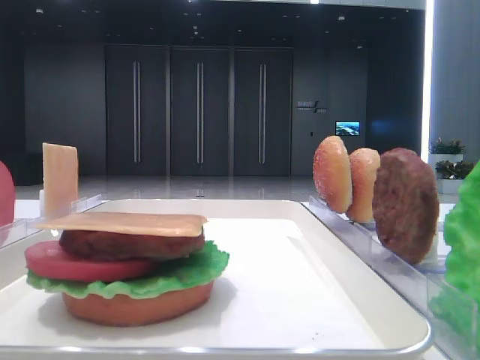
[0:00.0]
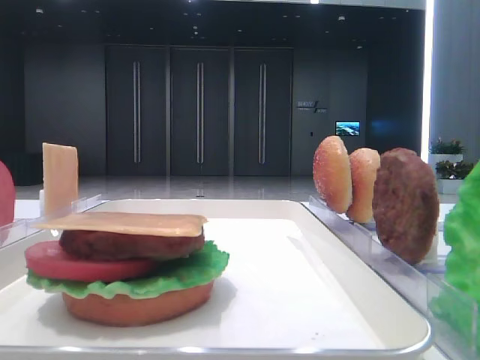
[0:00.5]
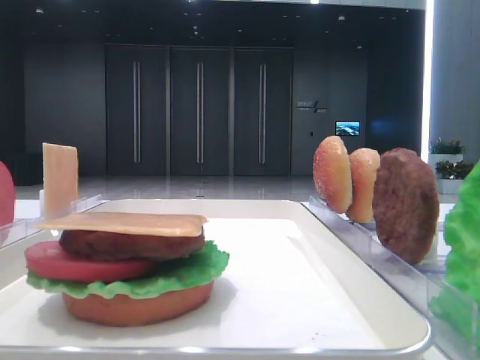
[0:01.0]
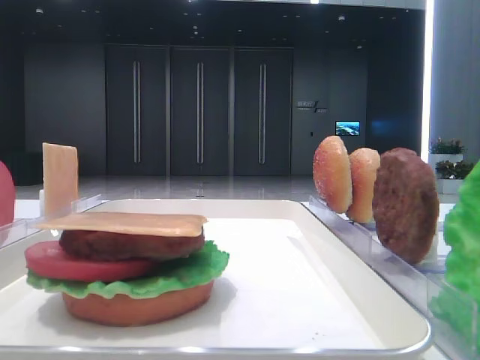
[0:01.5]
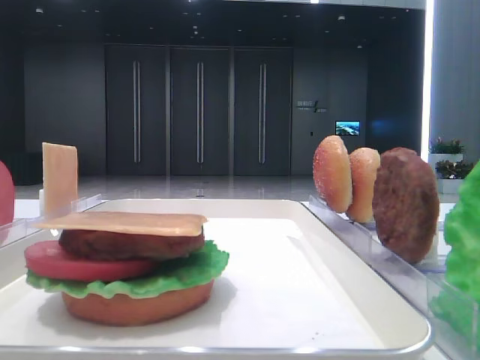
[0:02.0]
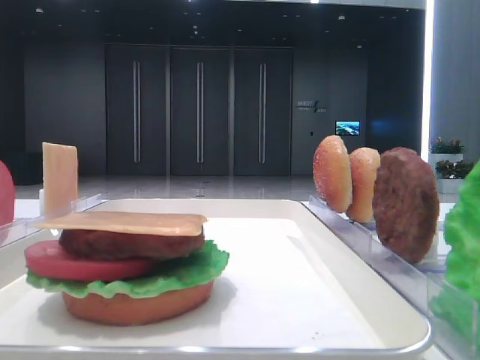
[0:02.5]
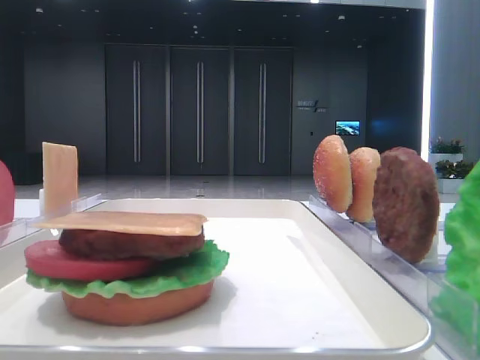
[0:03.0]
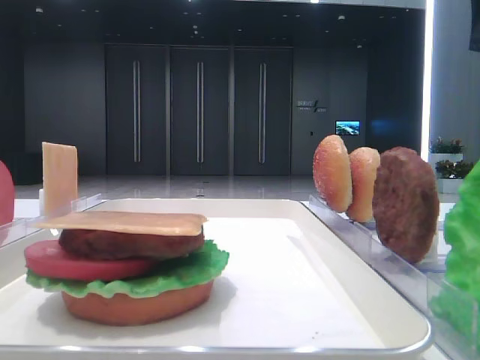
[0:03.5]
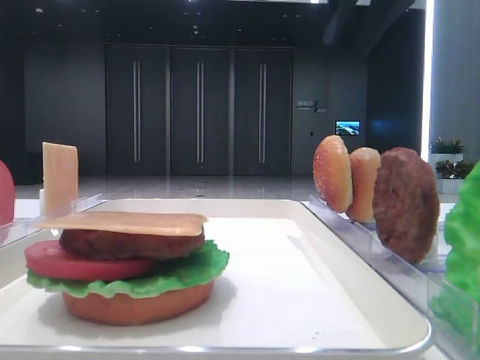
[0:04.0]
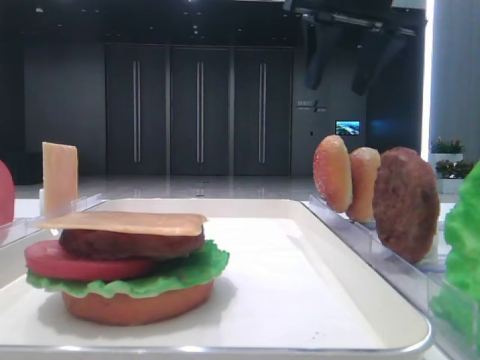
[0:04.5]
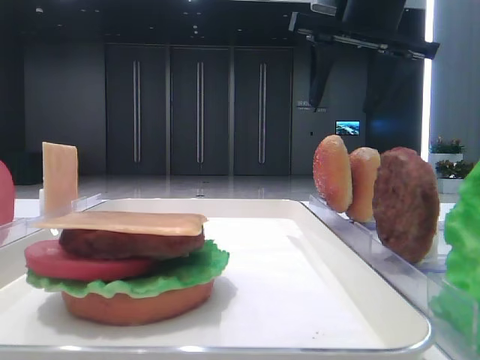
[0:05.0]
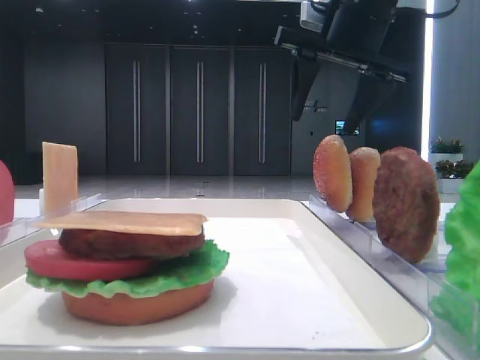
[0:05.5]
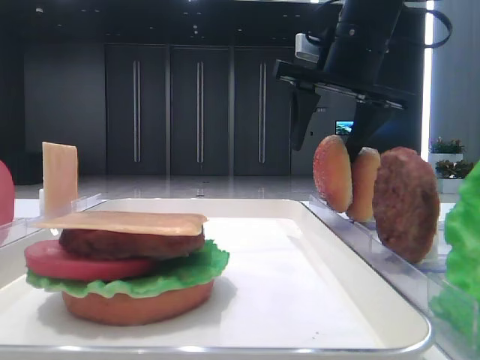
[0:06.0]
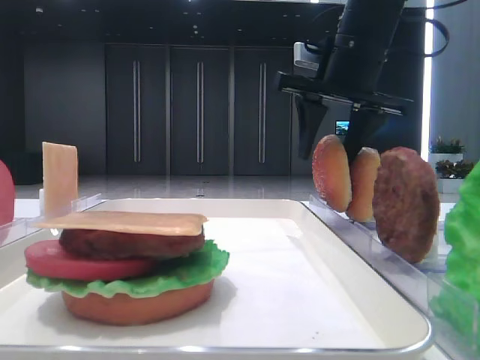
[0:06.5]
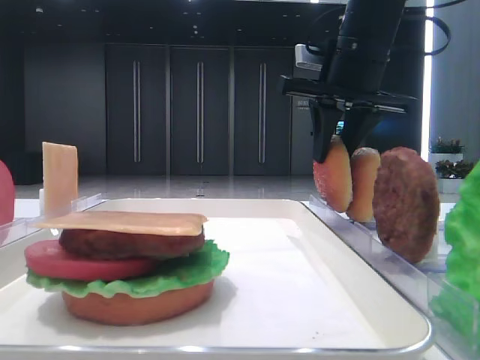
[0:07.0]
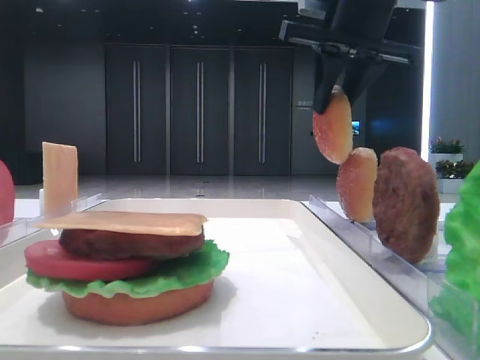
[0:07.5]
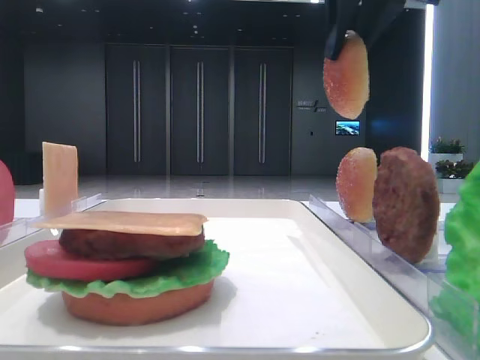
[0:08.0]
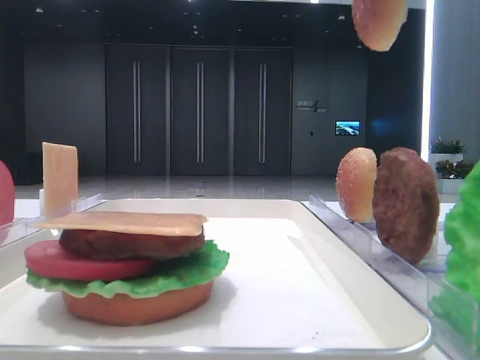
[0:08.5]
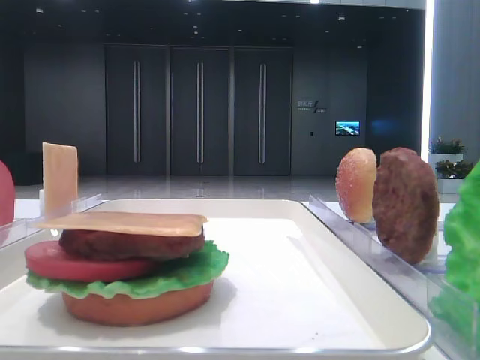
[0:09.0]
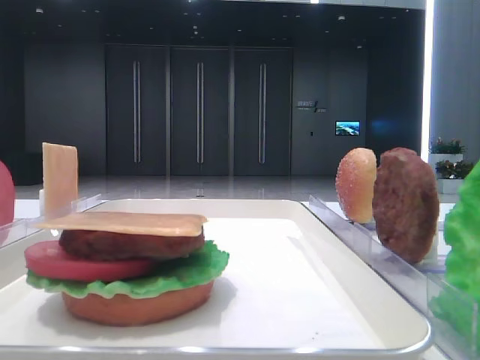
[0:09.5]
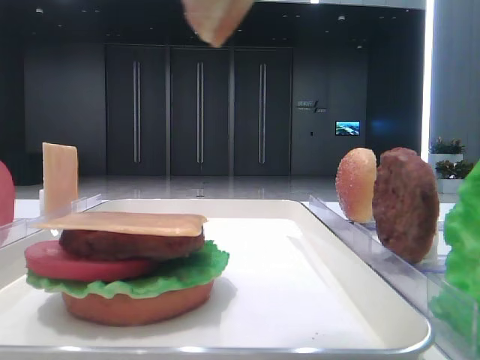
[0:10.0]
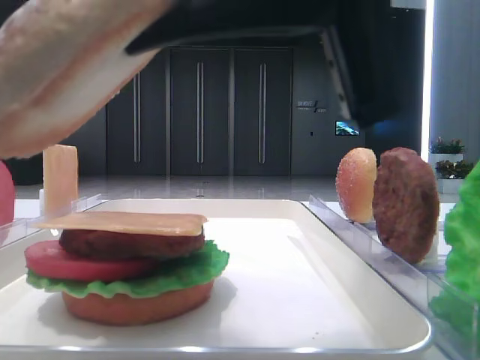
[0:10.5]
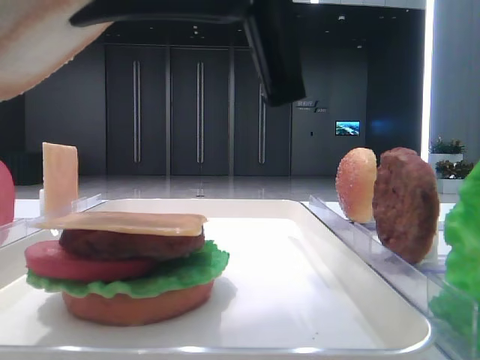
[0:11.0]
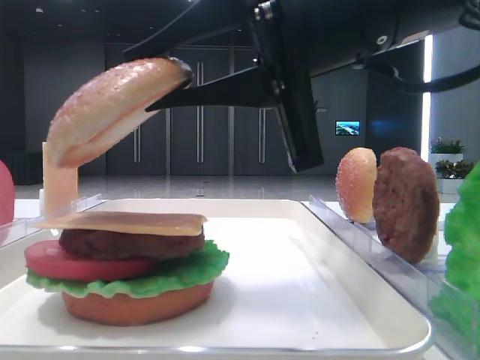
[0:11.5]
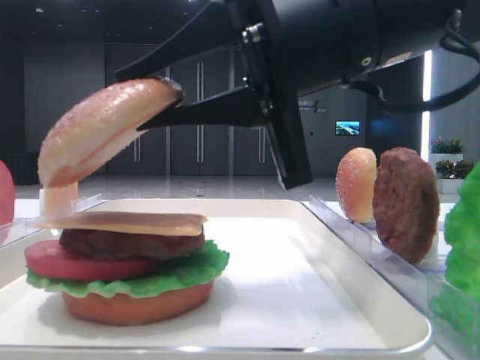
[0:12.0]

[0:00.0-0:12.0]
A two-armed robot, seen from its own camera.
Step, 0:00.0 to 0:07.0: Pick up the top bread slice with the right hand.
0:02.0 to 0:04.0: The right gripper is displaced forward and to the left by roughly 25 cm.
0:04.0 to 0:06.0: The right gripper travels downward by roughly 10 cm, and opens.
0:06.0 to 0:08.0: The right gripper is displaced upward by some 10 cm, and closes.
0:08.0 to 0:10.0: The right gripper moves backward, about 25 cm.
0:10.0 to 0:12.0: The right gripper shifts approximately 20 cm forward, downward and to the left.

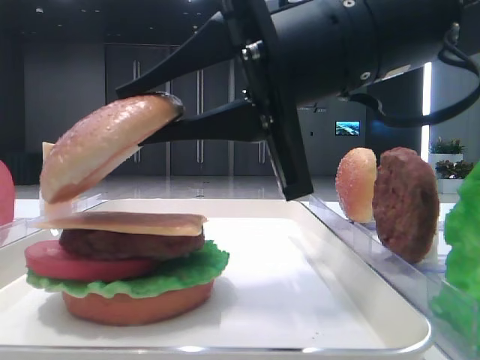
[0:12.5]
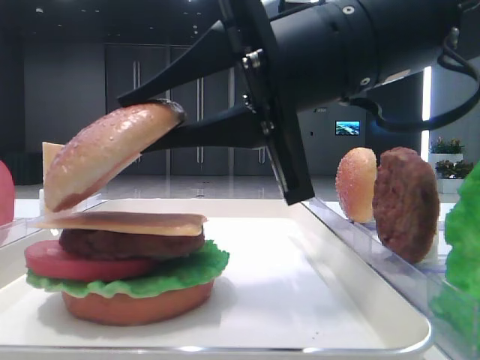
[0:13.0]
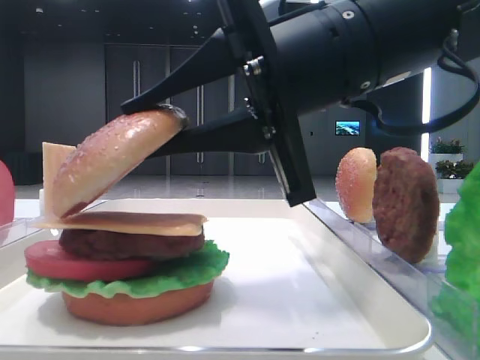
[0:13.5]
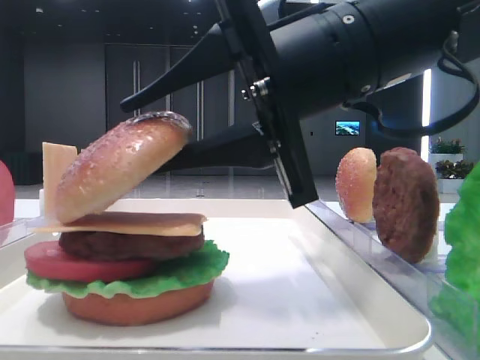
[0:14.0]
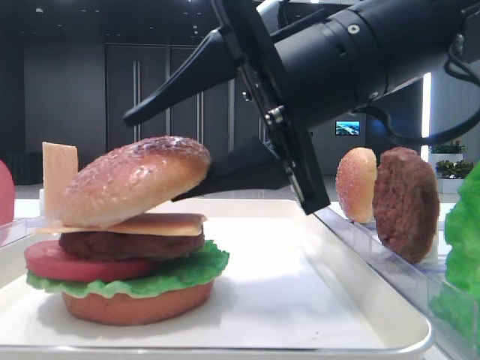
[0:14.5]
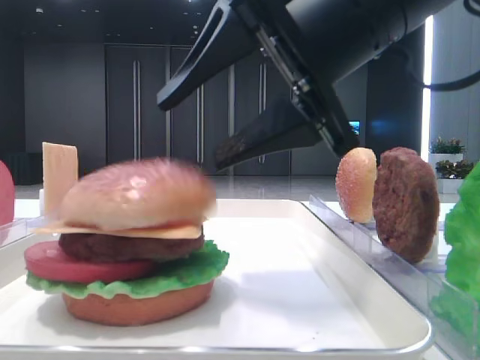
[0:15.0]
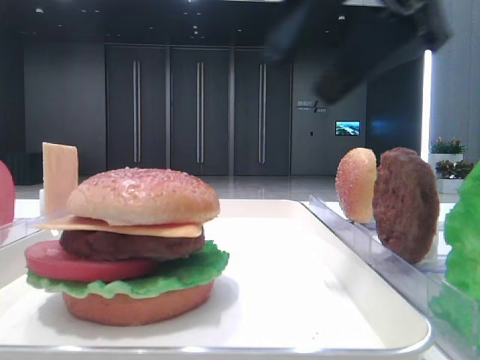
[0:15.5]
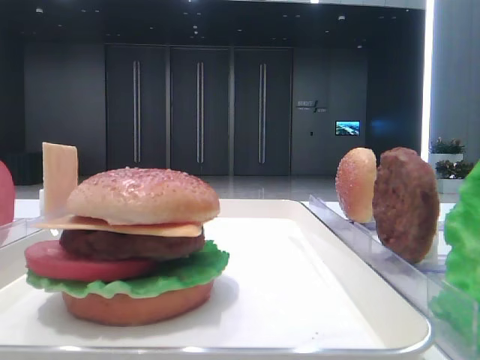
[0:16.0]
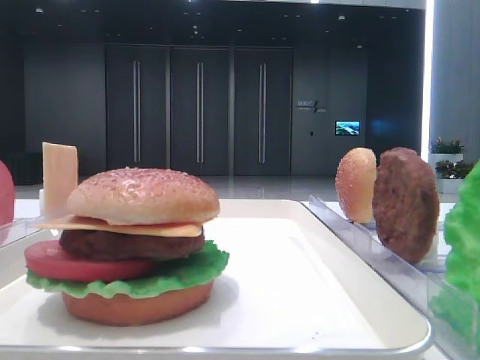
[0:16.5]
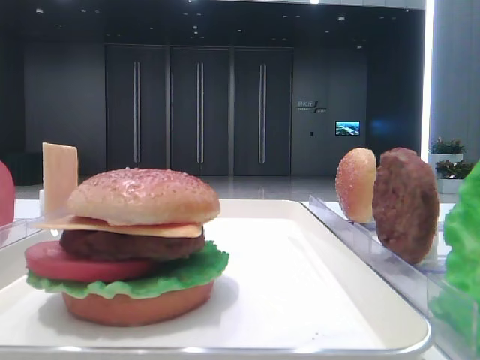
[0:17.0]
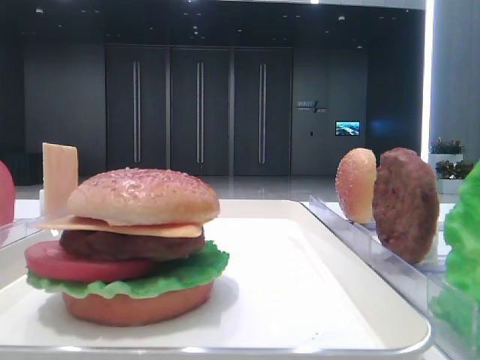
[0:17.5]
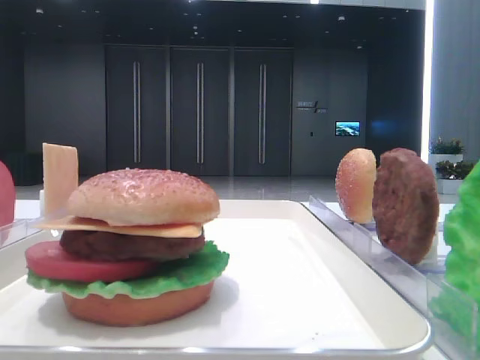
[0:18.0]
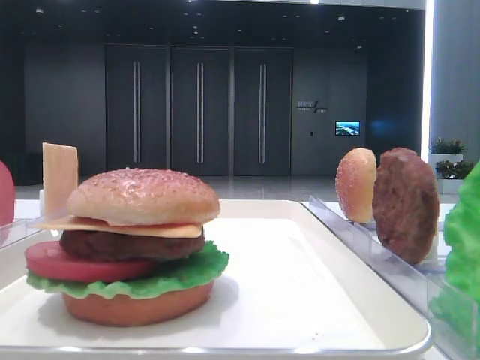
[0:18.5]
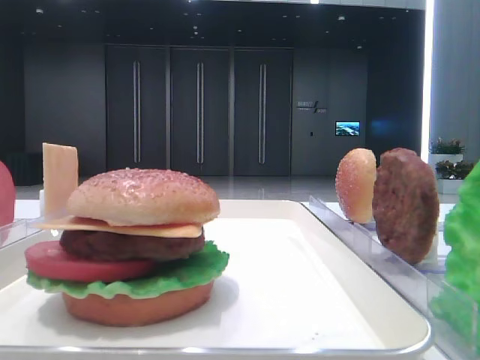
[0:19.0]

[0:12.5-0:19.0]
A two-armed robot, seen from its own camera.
Step, 0:12.5 to 0:15.0: Place the top bread slice on the cheese with the right hand.
0:12.5 to 0:14.5: The right gripper opens its fingers.
0:14.5 to 0:17.0: The right gripper heads upward, to the right and backward, covering approximately 35 cm.

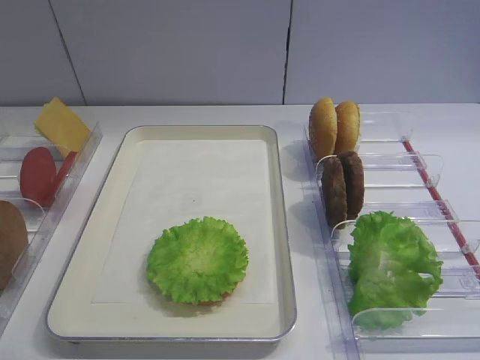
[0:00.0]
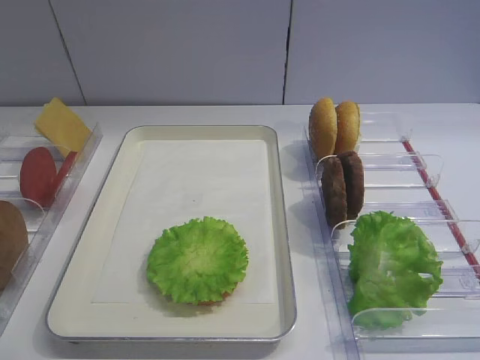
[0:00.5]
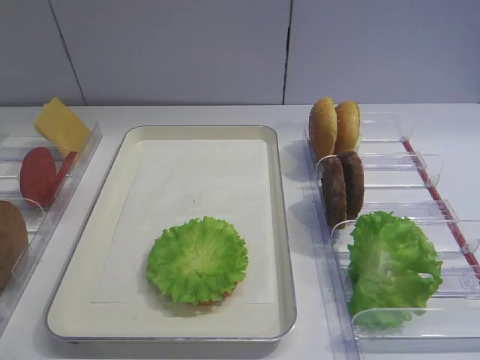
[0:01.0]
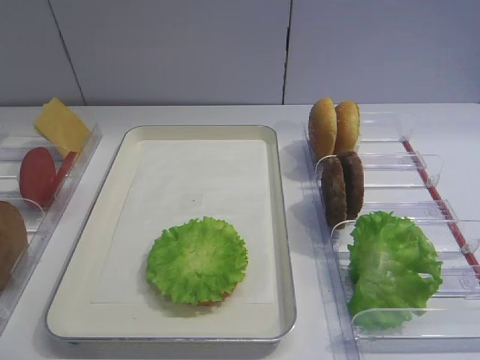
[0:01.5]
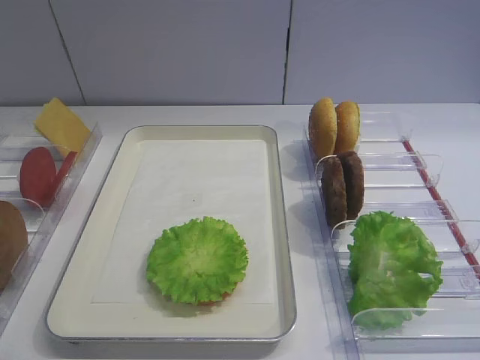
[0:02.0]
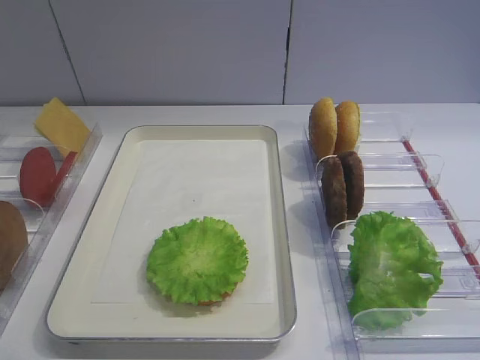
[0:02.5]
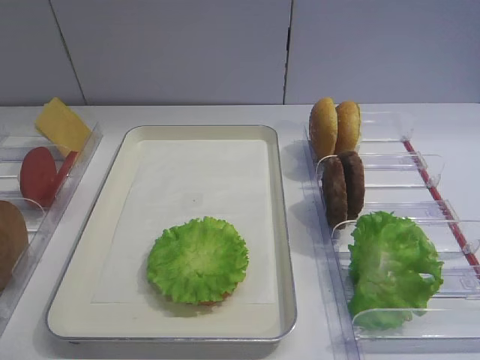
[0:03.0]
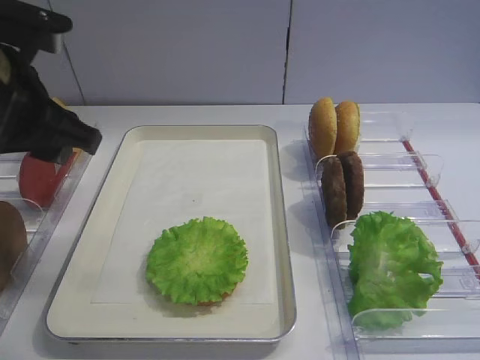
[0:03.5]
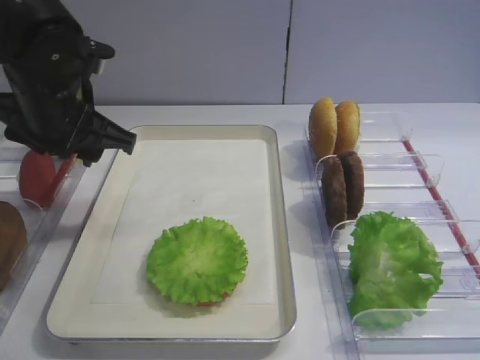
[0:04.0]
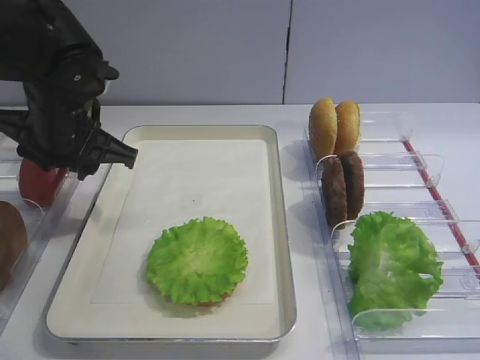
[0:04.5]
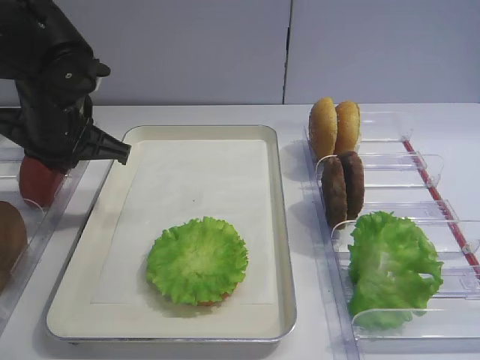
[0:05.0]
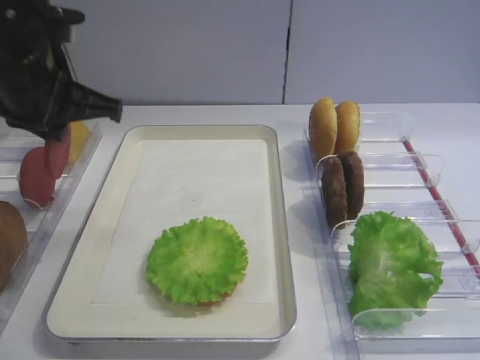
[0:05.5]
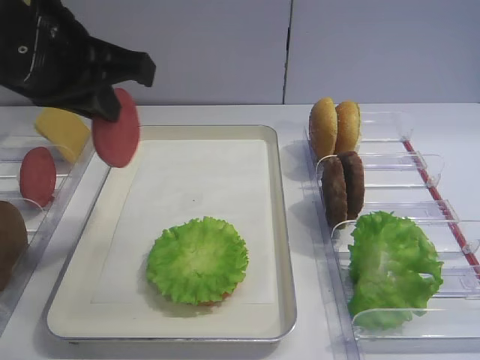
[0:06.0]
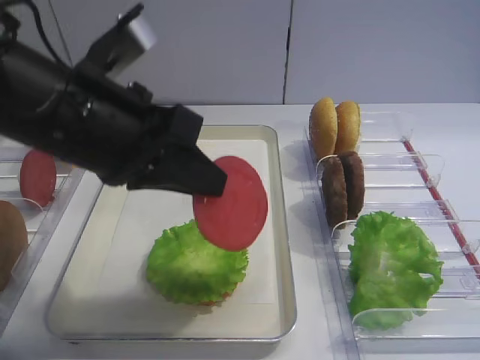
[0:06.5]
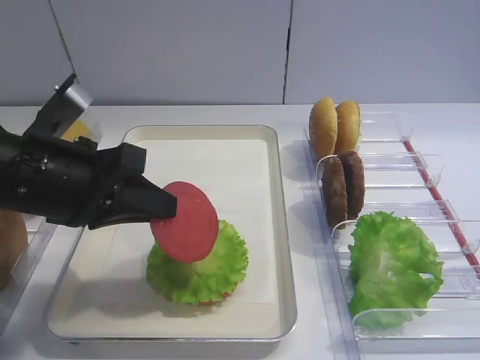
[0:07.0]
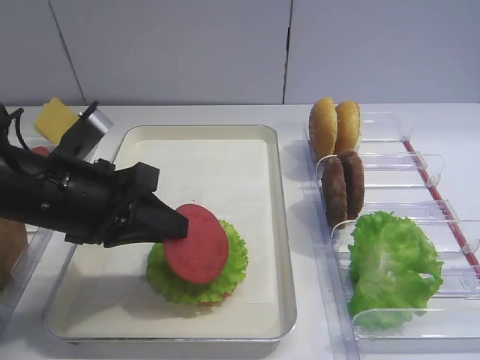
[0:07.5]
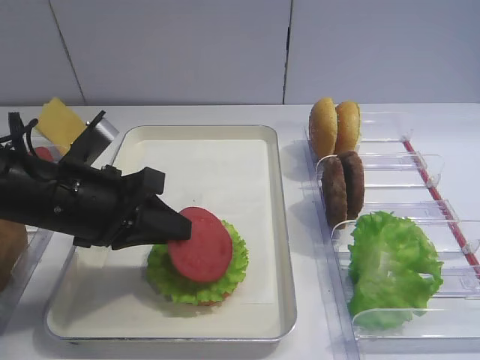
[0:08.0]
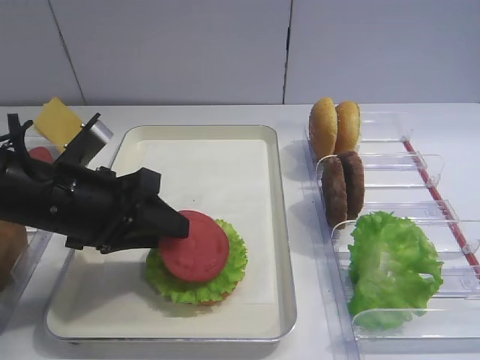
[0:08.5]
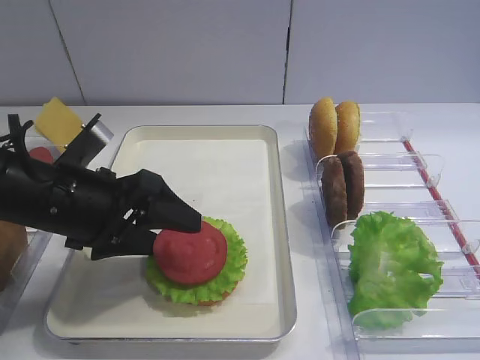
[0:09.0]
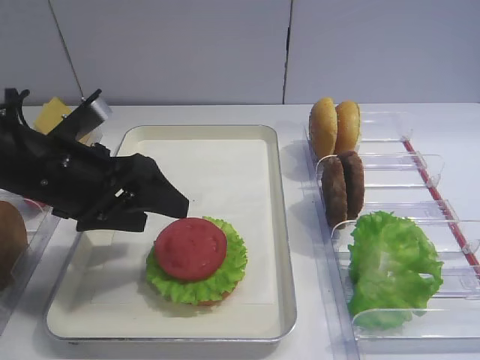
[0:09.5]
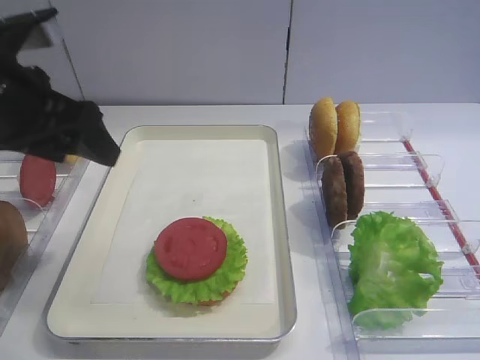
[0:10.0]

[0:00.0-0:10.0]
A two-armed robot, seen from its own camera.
Step, 0:00.0 to 0:05.5: Pick up the tomato slice with the left gripper.
Step, 0:06.0 to 0:09.0: Place the tomato slice on the lettuce leaf with the left gripper.
0:02.0 to 0:04.0: The left gripper shifts approximately 30 cm forward.
0:04.0 to 0:06.0: The left gripper is displaced upward and backward by approximately 10 cm, and closes.
0:06.0 to 0:08.0: The left gripper shifts roughly 15 cm downward.
0:08.0 to 0:10.0: The left gripper shifts some 10 cm upward and to the left, and opens.
